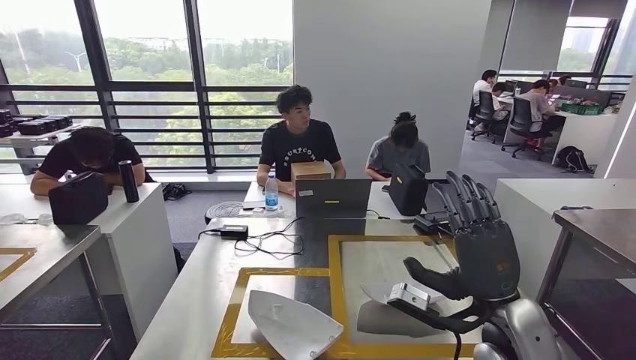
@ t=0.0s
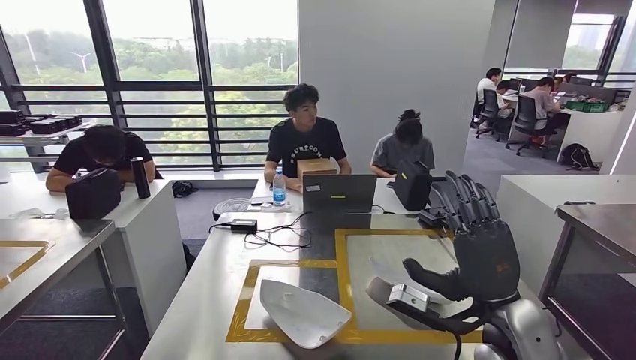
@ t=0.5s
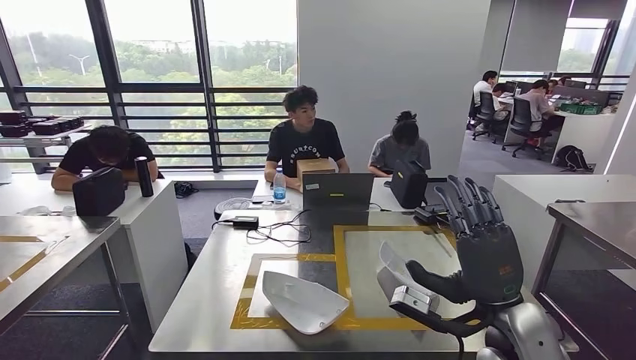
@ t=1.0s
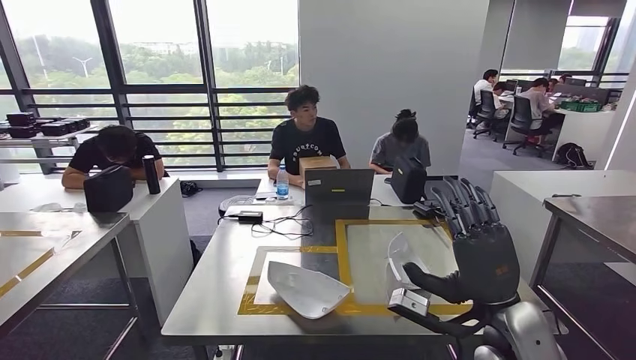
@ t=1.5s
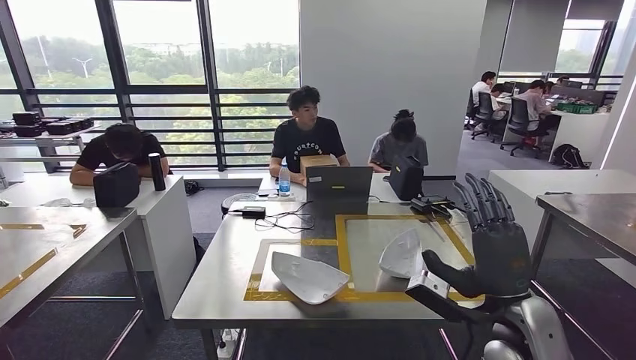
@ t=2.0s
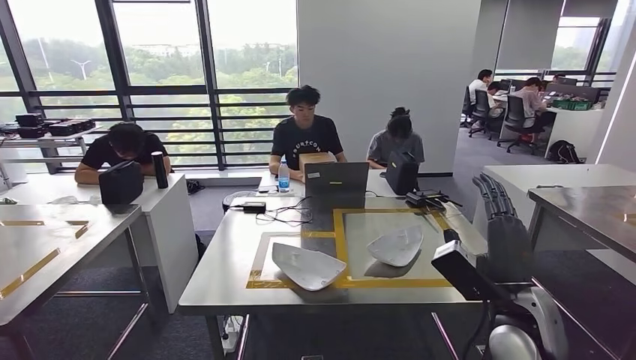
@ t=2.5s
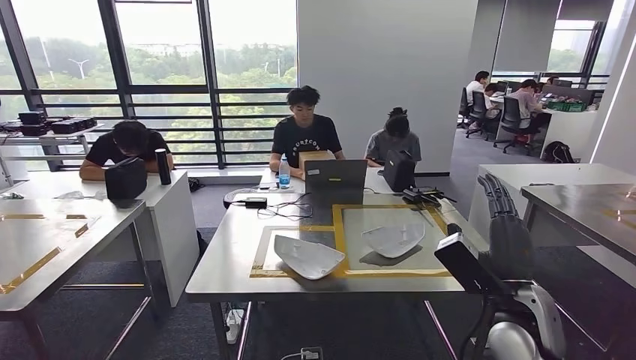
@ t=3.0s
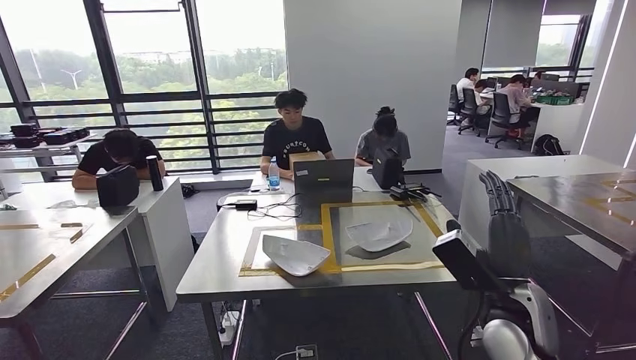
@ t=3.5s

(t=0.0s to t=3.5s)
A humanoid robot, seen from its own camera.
Step, t=0.0s - t=3.5s: Move to the initial position at the workbench.
